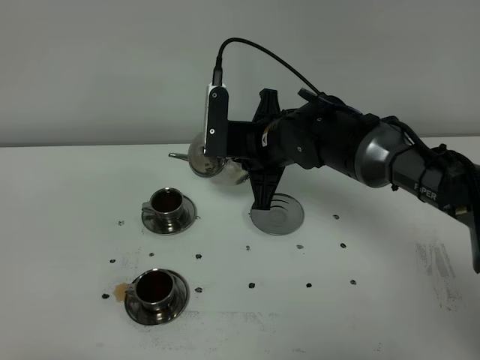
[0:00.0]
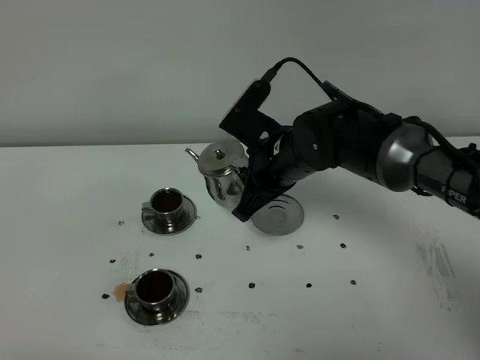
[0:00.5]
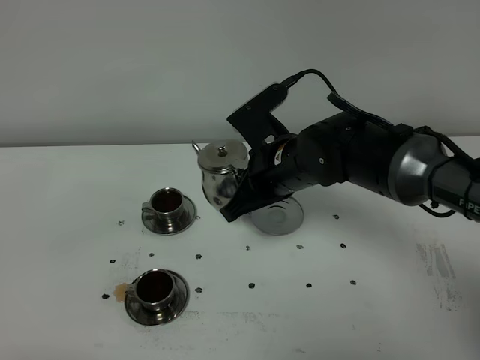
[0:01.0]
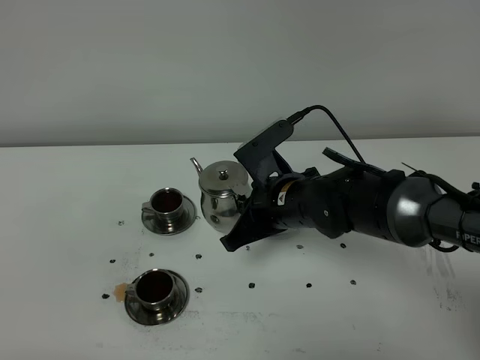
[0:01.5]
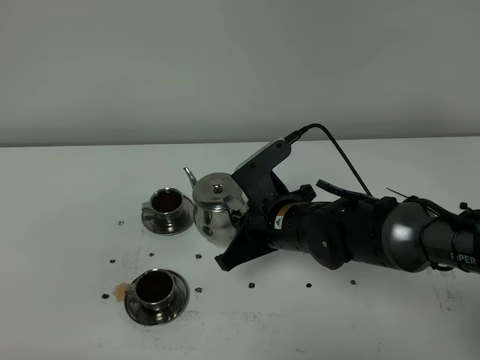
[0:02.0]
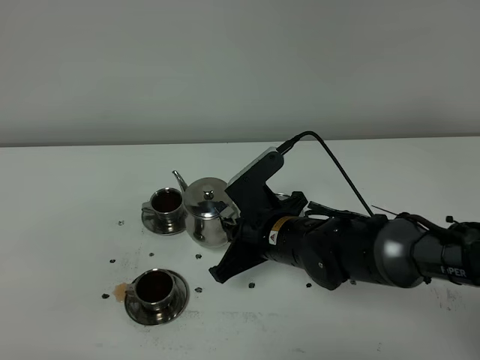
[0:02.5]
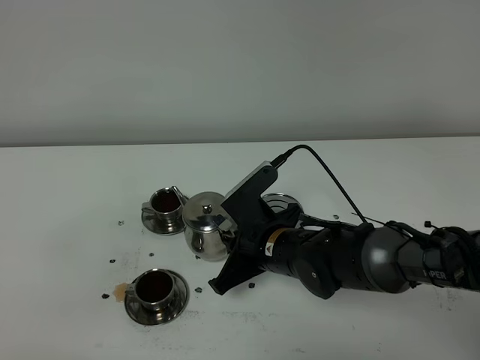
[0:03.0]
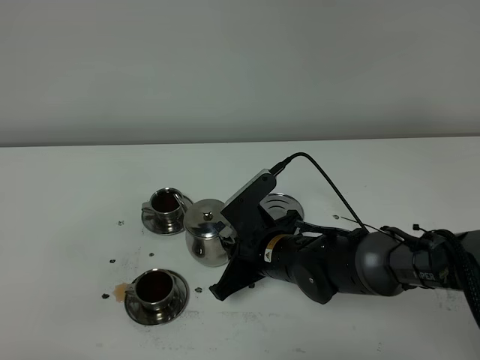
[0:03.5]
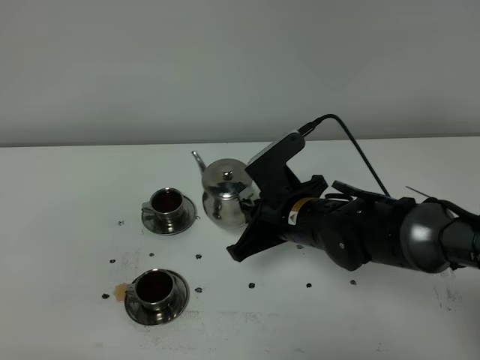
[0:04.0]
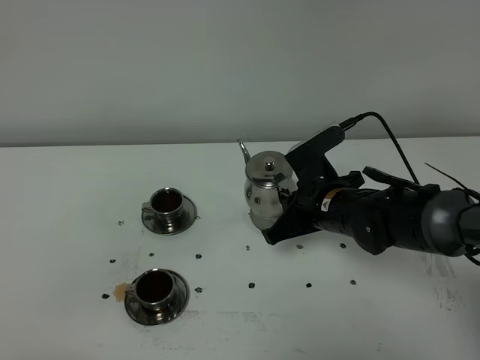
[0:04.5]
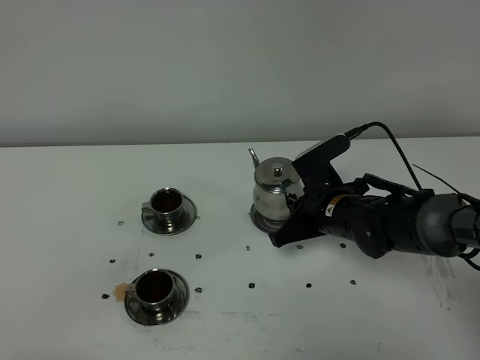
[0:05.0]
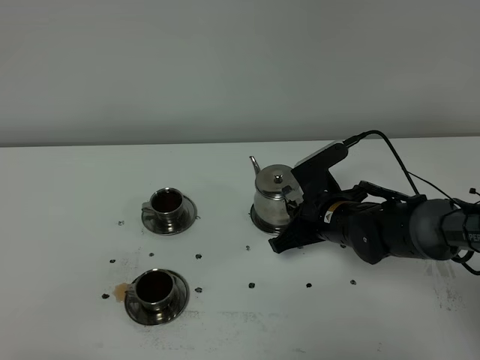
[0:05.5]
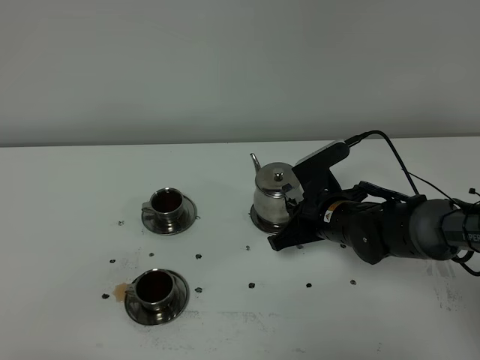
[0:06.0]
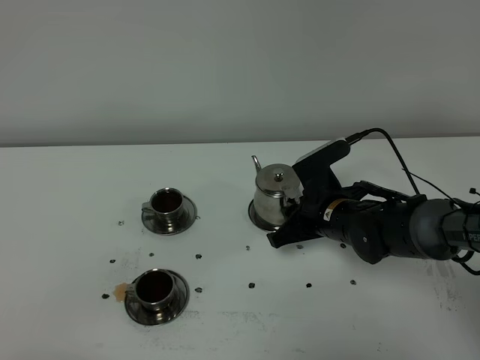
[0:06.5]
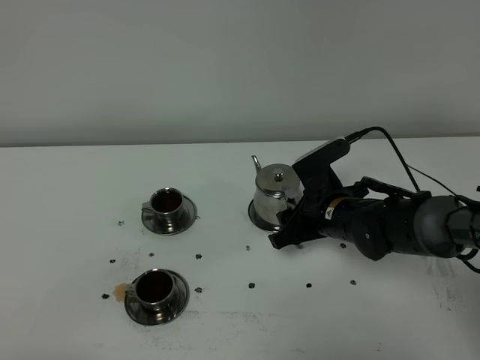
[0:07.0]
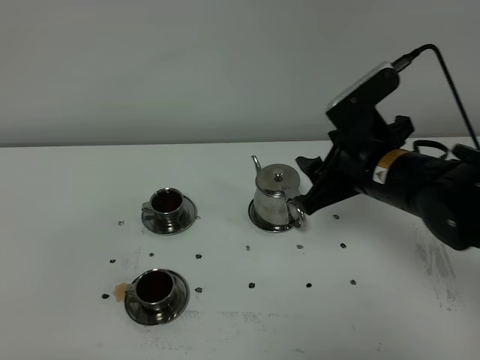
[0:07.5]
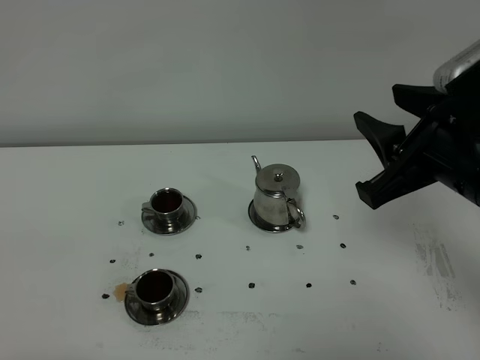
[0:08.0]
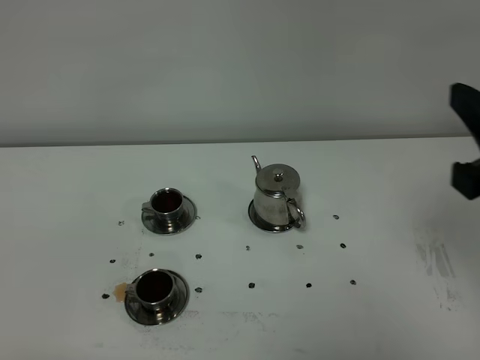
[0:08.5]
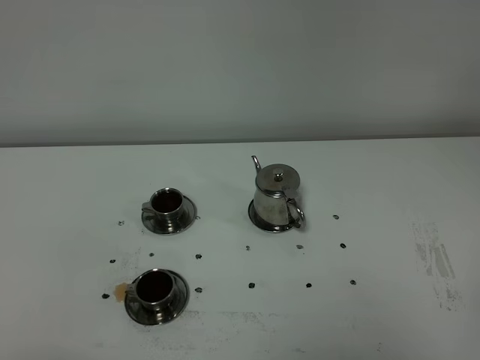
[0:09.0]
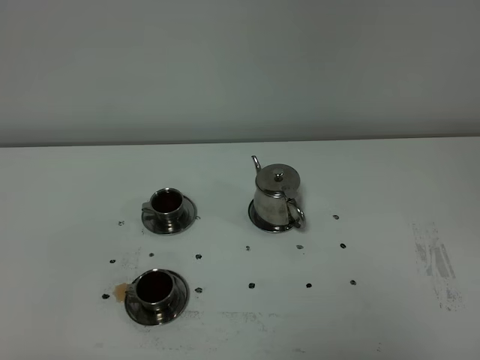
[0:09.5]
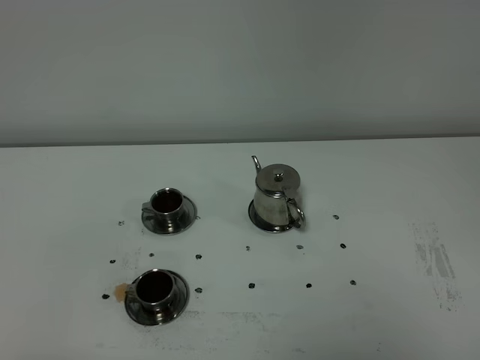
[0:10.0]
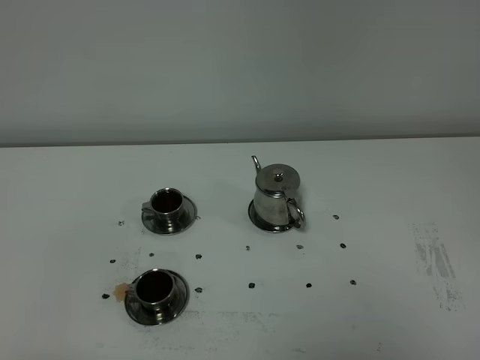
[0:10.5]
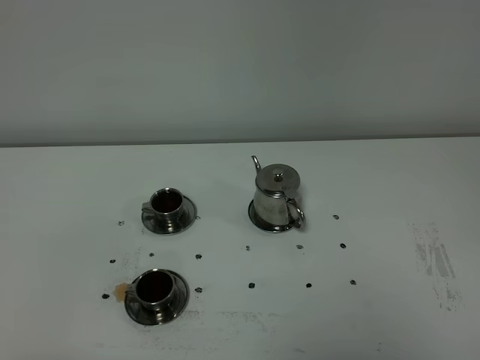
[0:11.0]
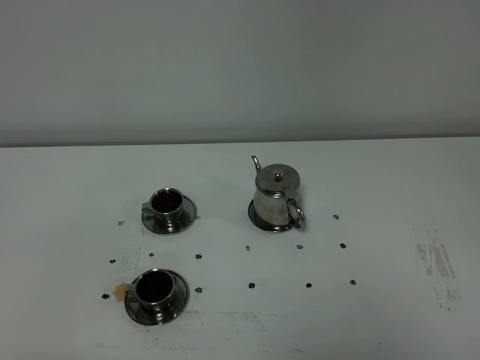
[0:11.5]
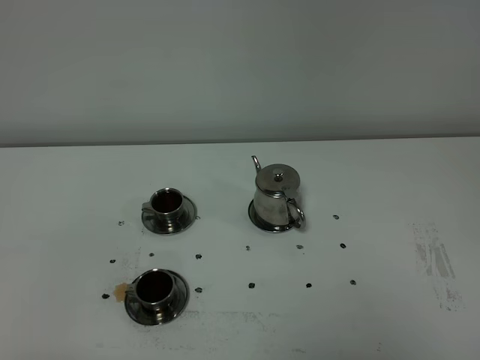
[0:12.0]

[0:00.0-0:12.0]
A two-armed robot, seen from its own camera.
Task of the whole recording: grasp the stainless steel teapot and pour the tea into the two stainless steel teacups one by one, put the stainless steel teapot back in its original place.
0:00.0 to 0:02.0: The right gripper goes roughly 10 cm backward and downward.
0:02.0 to 0:04.0: The grippers move only a little.
0:04.0 to 0:06.0: The right gripper heads downward, covering approximately 5 cm.
0:06.0 to 0:08.0: The right gripper moves upward and backward, roughly 25 cm, and opens its fingers.
0:08.0 to 0:10.0: The right gripper heads backward and to the right, covering some 25 cm, and closes.
0:10.0 to 0:12.0: Both grippers stay put.
